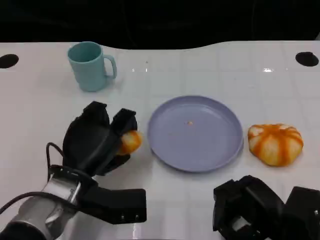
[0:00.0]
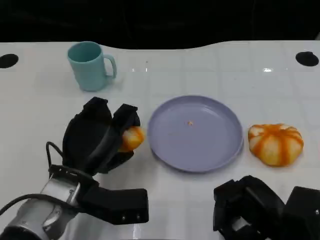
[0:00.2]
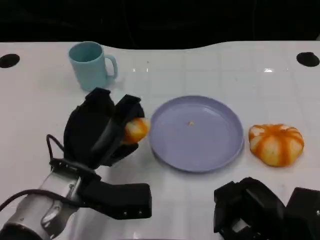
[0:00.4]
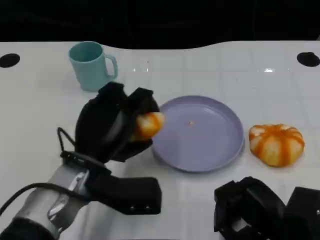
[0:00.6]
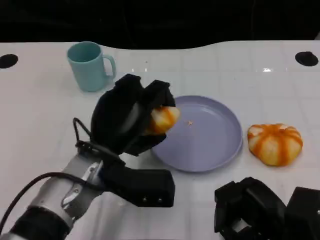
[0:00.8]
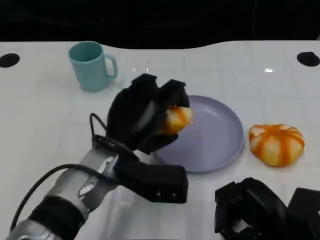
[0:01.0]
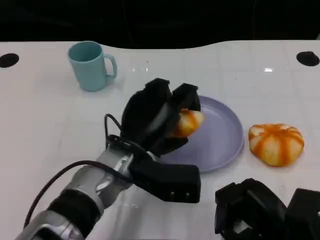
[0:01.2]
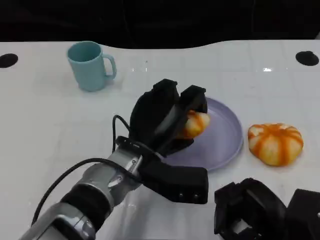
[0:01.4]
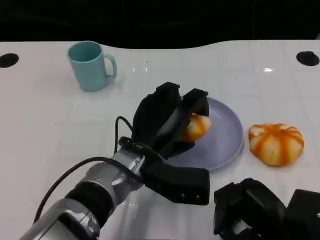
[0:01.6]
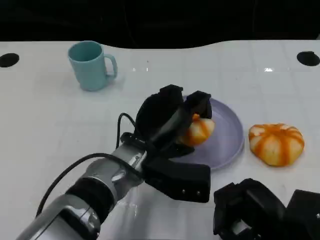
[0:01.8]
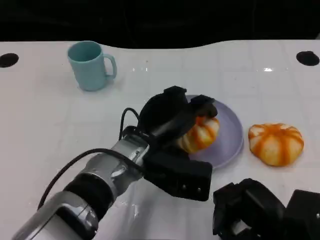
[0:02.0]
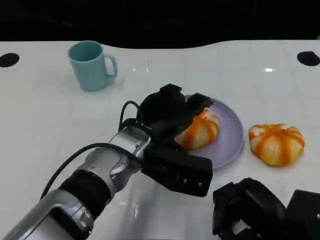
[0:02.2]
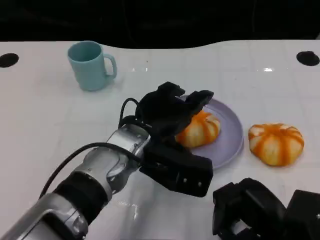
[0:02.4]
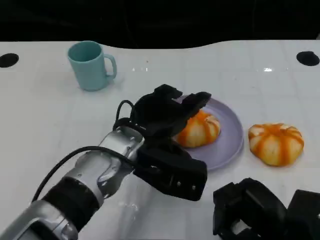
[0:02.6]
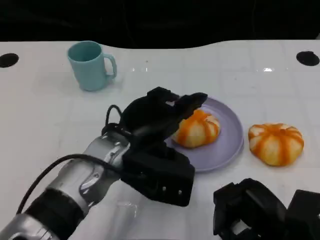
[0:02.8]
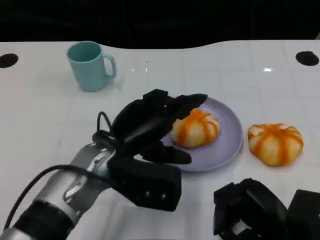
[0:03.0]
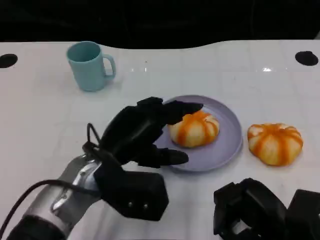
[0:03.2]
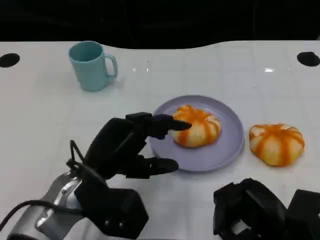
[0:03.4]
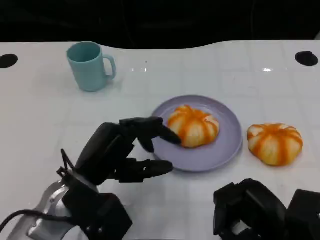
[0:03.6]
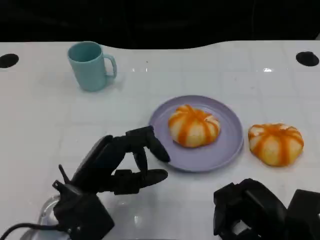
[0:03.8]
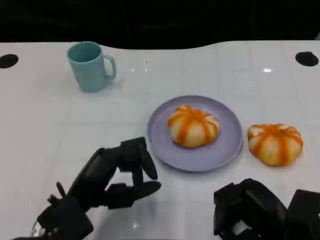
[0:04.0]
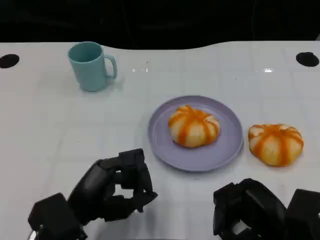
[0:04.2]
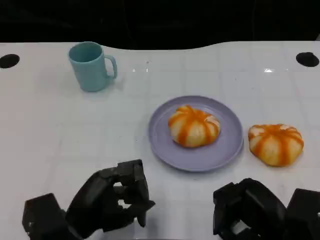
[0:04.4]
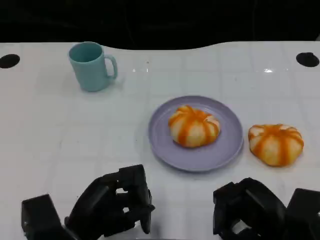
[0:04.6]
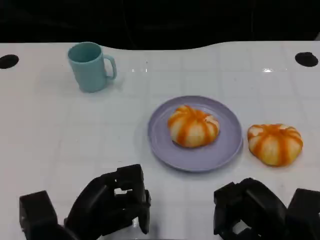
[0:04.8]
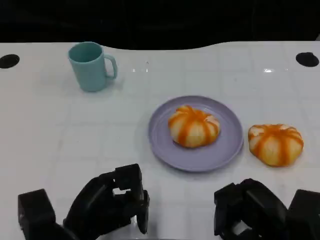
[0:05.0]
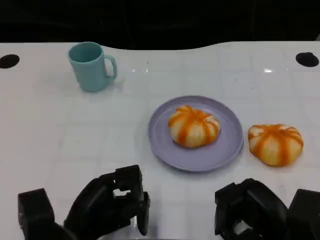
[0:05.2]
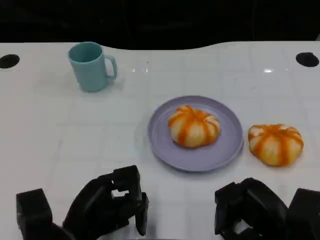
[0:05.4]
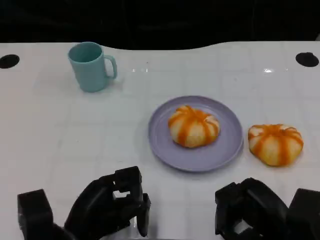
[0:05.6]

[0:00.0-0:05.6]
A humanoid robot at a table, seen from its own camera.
Task of the whole recording: Grasp the bread from the table and place it into the plate.
0:00.0 to 0:01.4: The left hand travels to the right by approximately 10 cm.
0:02.8 to 0:04.2: The left hand is displaced to the left, backward and downward by about 15 cm.

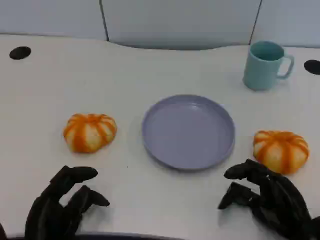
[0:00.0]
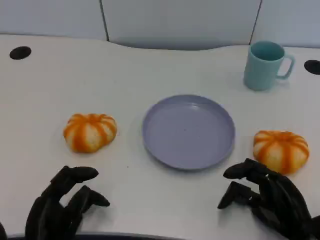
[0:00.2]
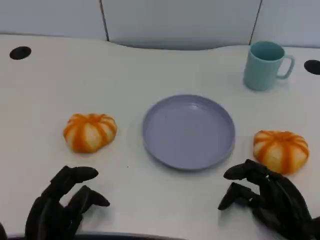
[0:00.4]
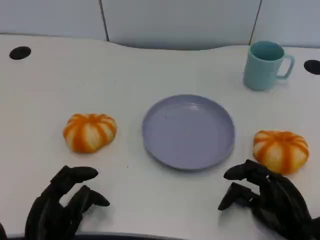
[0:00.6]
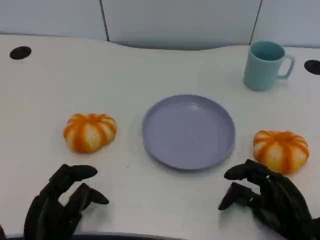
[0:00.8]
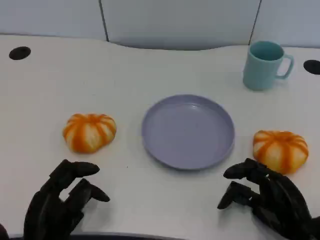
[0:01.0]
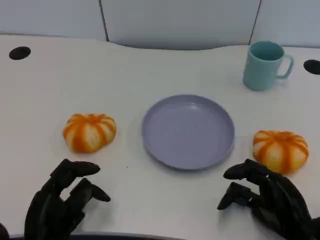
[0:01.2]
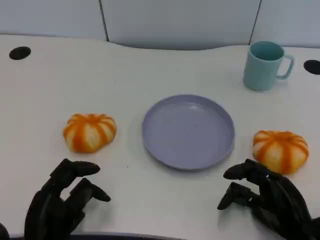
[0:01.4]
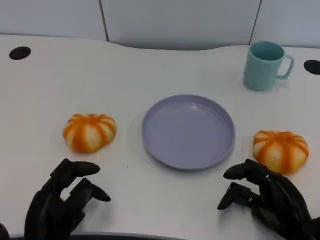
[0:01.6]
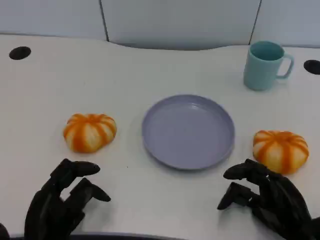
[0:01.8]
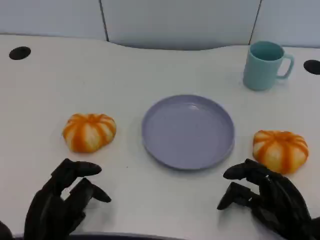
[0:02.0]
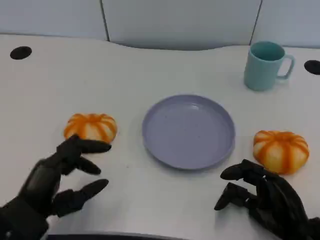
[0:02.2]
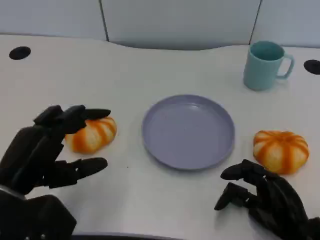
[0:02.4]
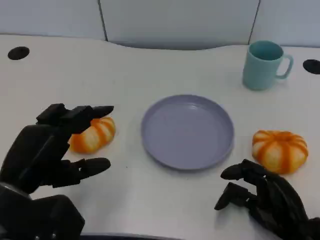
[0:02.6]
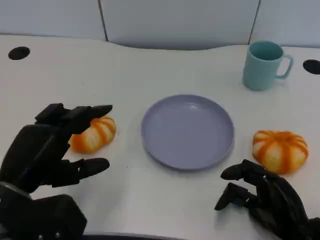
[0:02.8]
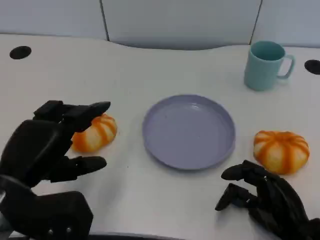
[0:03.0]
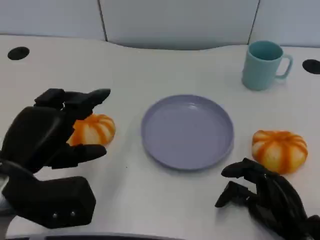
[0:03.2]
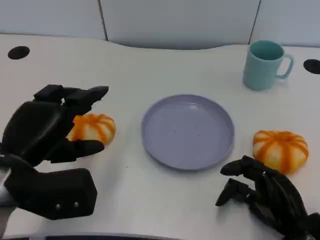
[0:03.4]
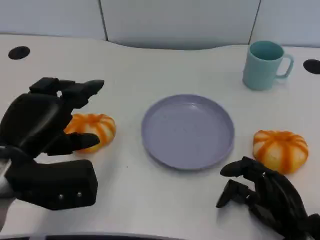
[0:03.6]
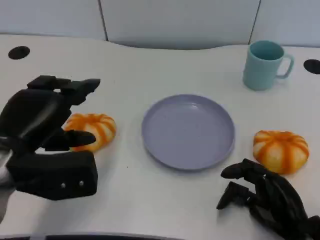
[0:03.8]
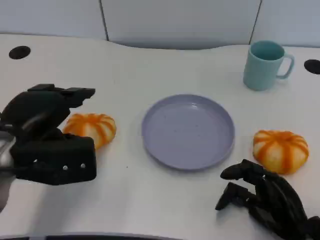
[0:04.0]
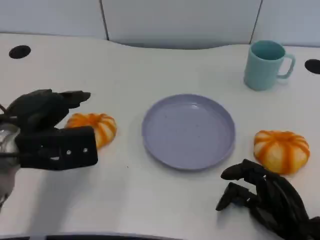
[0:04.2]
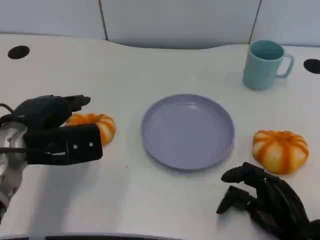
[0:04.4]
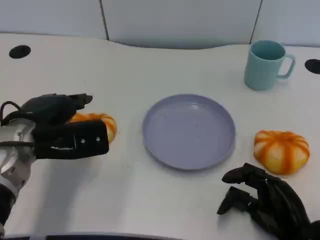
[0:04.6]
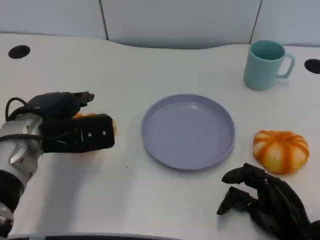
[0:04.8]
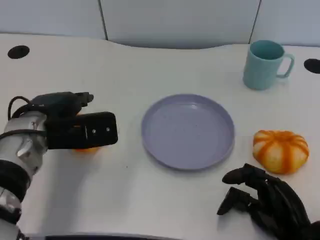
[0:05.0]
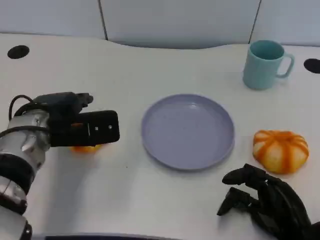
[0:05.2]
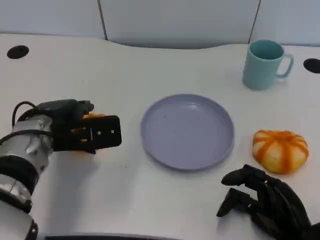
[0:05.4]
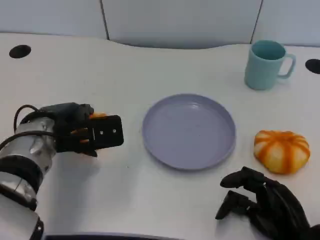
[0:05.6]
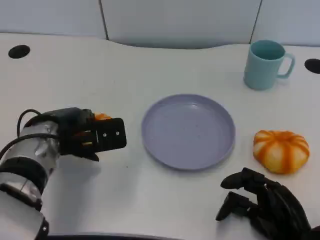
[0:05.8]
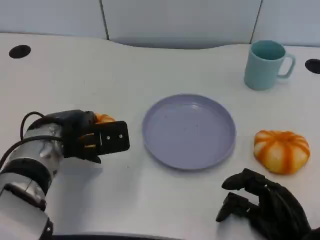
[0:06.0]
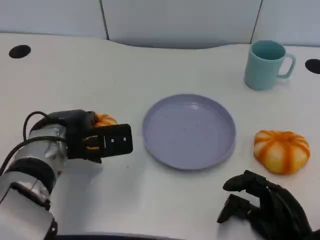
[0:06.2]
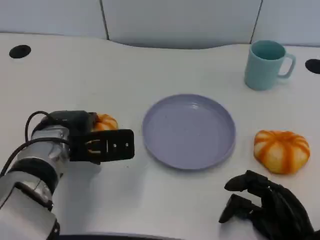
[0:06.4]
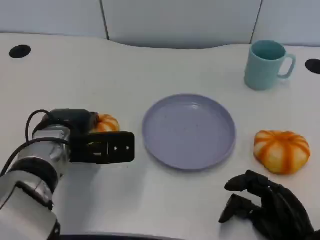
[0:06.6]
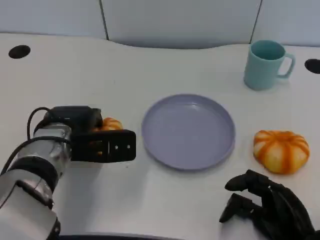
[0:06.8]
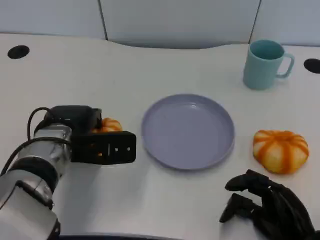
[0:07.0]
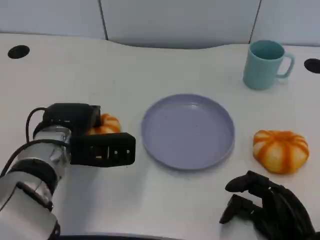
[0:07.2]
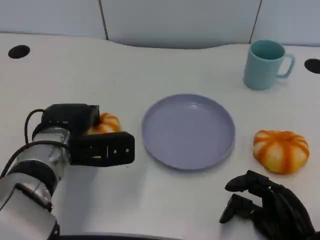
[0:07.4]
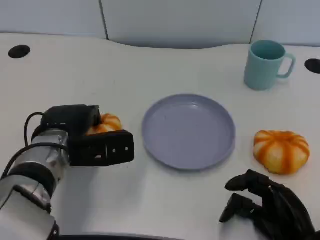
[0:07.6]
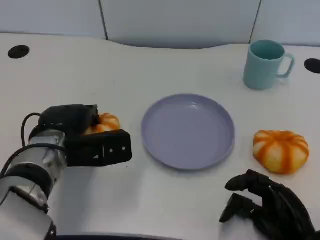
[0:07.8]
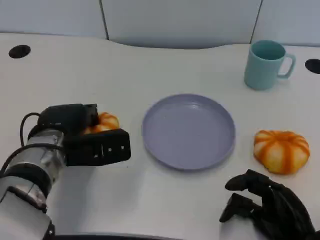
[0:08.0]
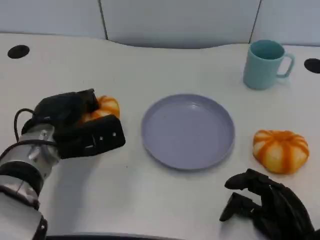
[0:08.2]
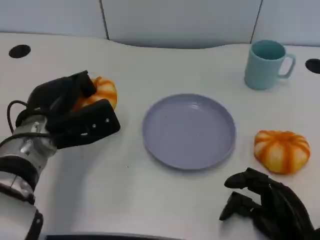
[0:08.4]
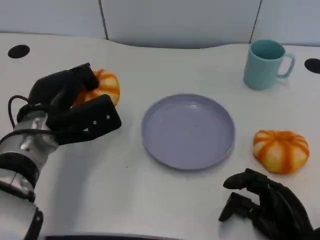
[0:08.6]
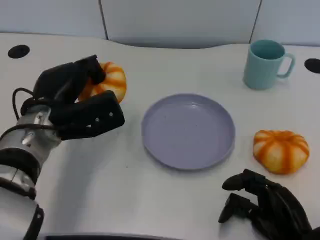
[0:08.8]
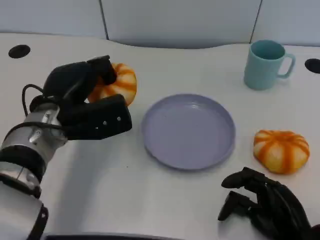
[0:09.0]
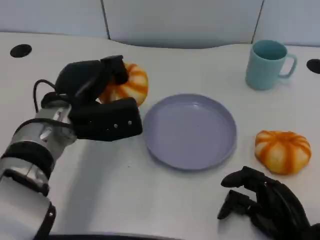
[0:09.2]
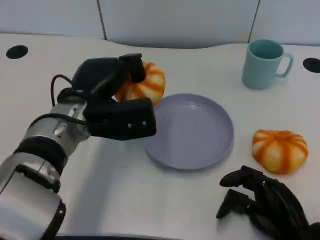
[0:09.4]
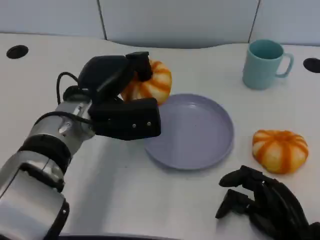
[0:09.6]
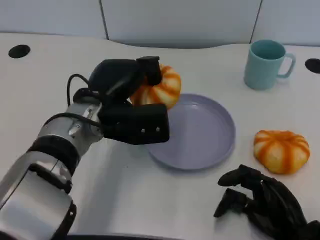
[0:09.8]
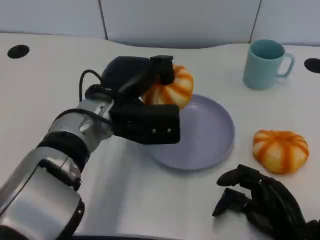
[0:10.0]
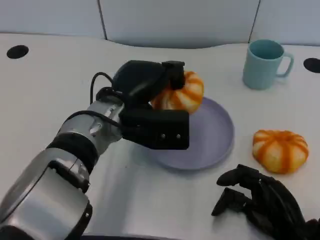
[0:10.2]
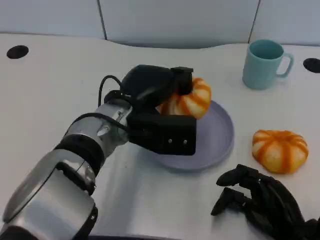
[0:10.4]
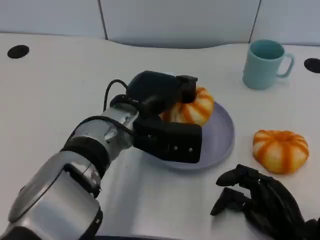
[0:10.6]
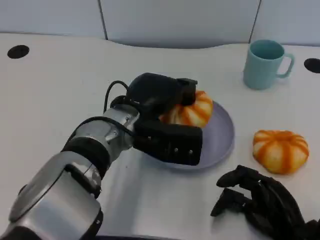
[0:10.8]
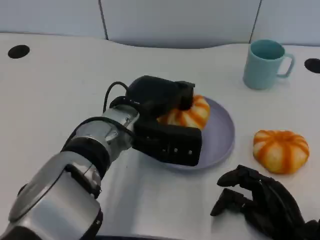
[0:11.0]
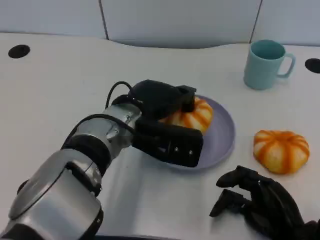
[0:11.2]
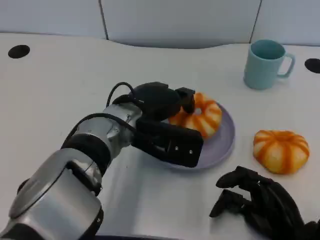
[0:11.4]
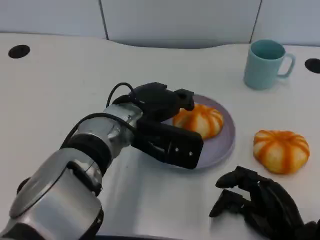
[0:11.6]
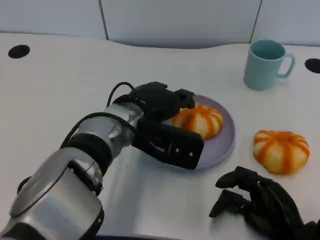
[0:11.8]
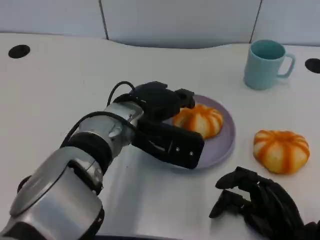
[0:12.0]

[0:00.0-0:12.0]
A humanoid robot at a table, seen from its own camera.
Task of the whole recording: Grasp the bread from the table and place it into the plate.
0:00.0 to 0:01.6: The hands stay close to where they were, moving slightly.
0:01.6 to 0:03.0: The left hand heads upward, covering about 10 cm.
0:03.0 to 0:04.4: The left hand heads forward, covering about 10 cm.
0:04.4 to 0:06.0: The left hand shifts by roughly 5 cm.
0:06.0 to 0:07.6: The hands make only small movements.
0:09.0 to 0:10.4: The left hand heads to the right, covering about 10 cm.

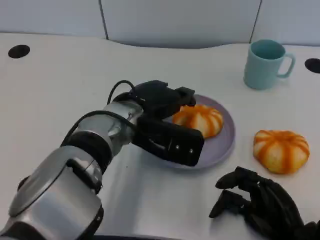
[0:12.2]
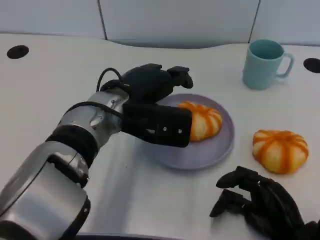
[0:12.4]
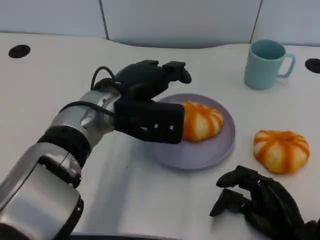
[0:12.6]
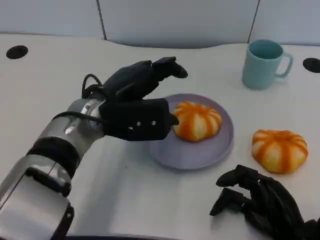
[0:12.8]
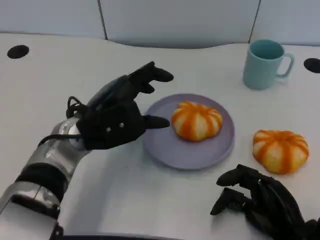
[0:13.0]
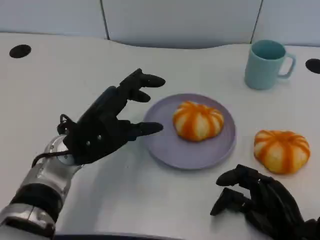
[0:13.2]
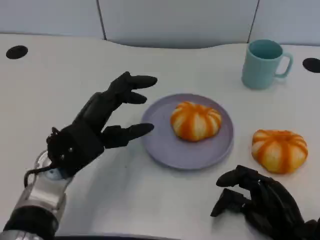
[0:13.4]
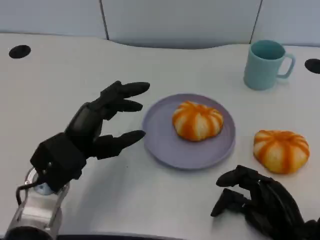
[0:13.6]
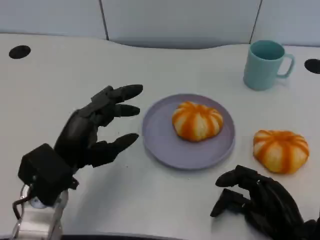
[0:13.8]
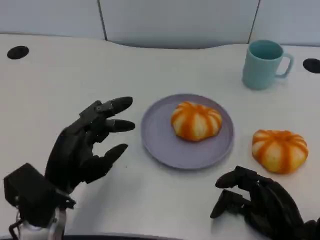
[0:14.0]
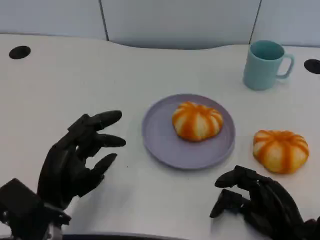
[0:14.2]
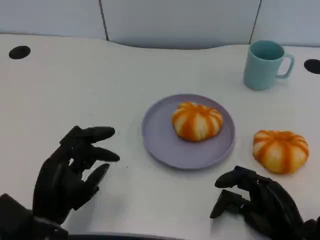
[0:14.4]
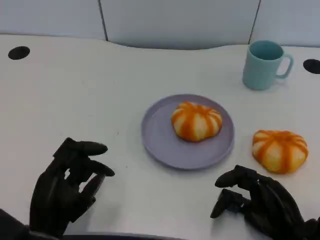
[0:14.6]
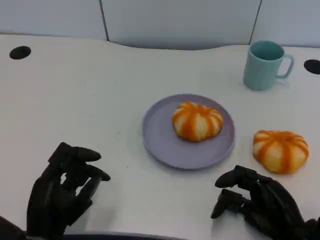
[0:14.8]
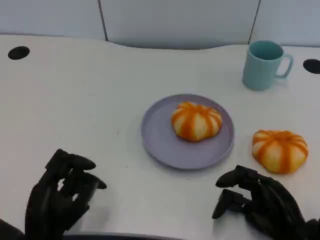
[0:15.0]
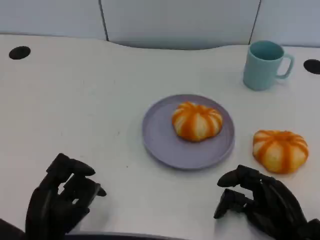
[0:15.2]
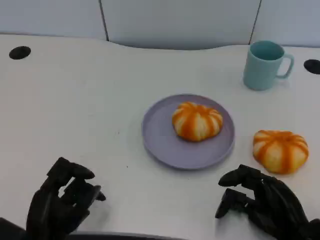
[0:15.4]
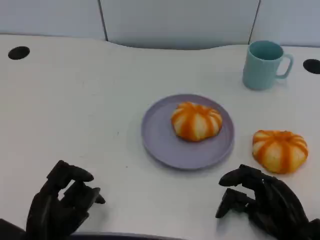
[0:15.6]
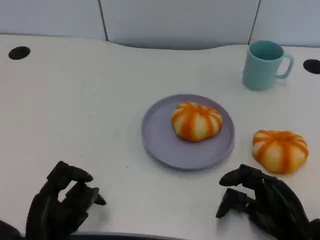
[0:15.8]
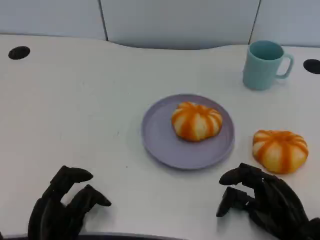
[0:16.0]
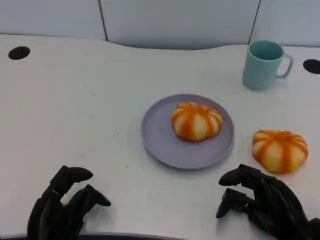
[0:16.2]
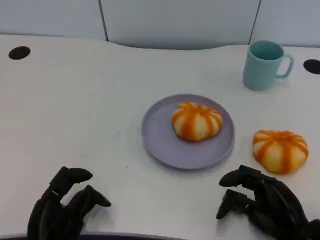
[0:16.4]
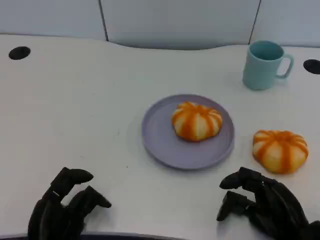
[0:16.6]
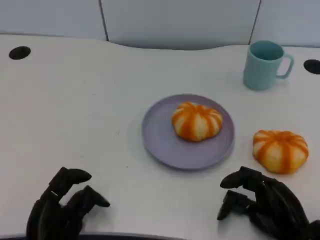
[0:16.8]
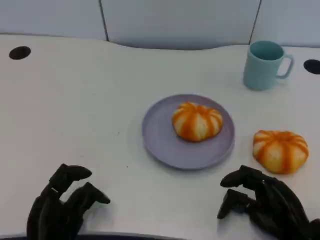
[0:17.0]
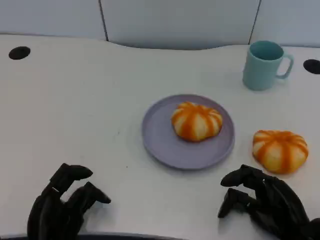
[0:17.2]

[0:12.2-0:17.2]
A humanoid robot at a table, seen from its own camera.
Task of the whole recording: Grasp the bread from the table and place it into the plate.
0:12.2 to 0:13.8: The left hand travels to the left, backward and downward by some 15 cm.
0:13.8 to 0:15.6: The left hand moves backward and downward, some 10 cm.
